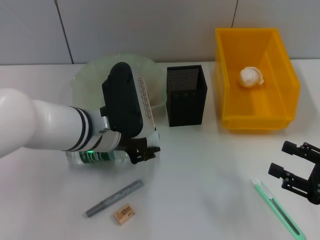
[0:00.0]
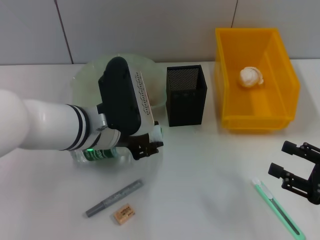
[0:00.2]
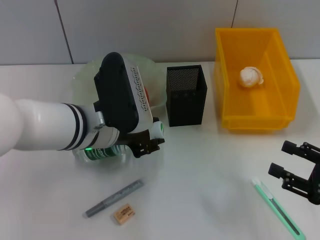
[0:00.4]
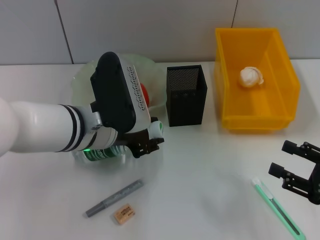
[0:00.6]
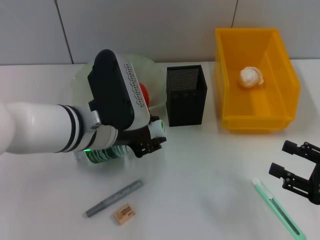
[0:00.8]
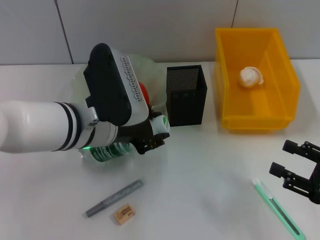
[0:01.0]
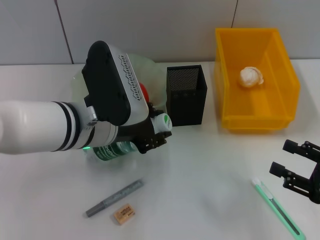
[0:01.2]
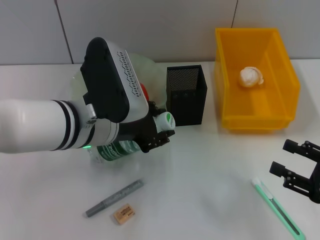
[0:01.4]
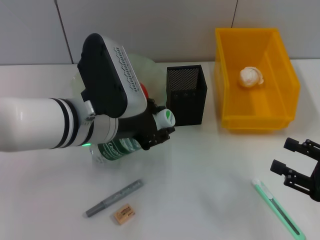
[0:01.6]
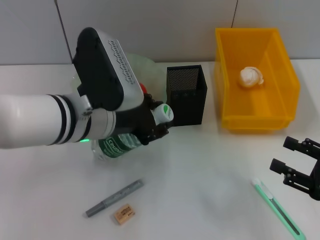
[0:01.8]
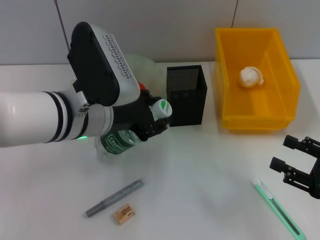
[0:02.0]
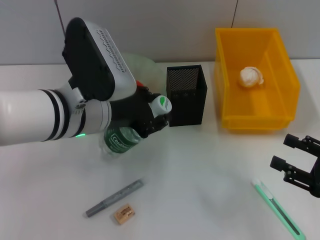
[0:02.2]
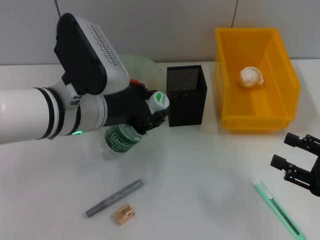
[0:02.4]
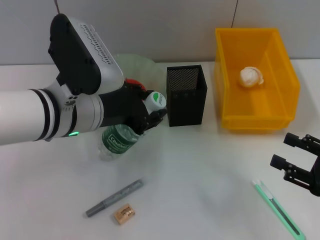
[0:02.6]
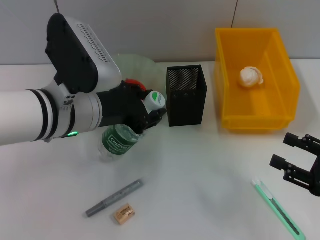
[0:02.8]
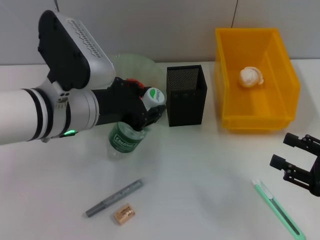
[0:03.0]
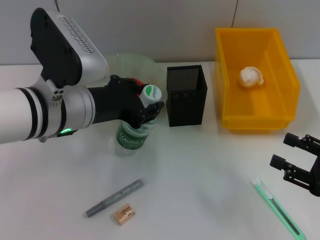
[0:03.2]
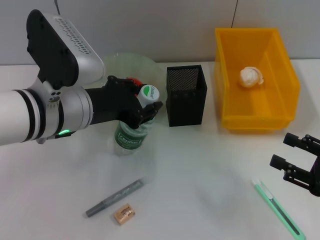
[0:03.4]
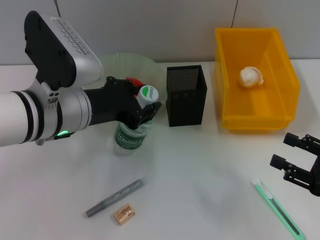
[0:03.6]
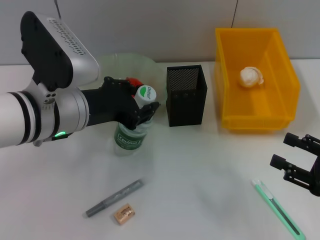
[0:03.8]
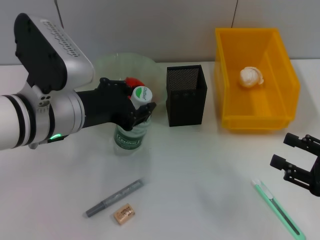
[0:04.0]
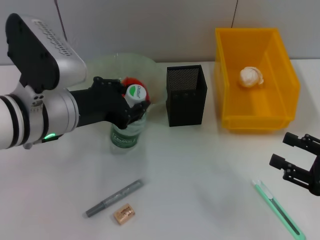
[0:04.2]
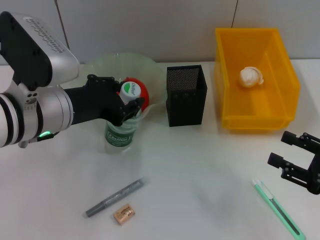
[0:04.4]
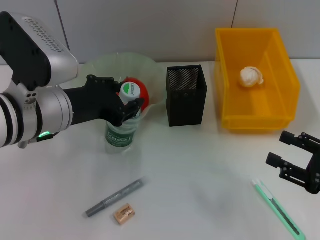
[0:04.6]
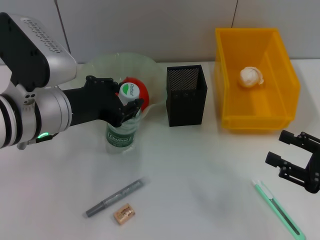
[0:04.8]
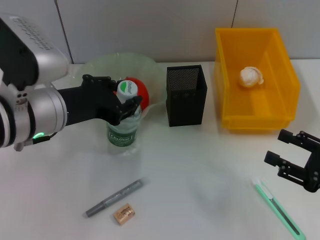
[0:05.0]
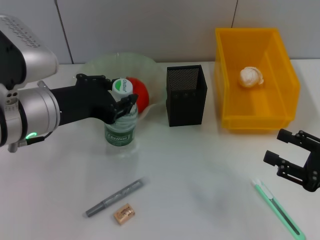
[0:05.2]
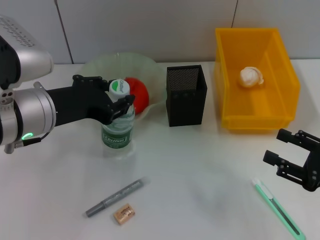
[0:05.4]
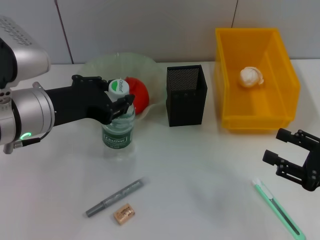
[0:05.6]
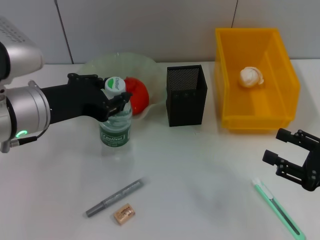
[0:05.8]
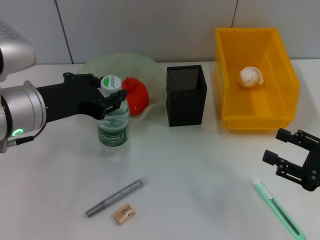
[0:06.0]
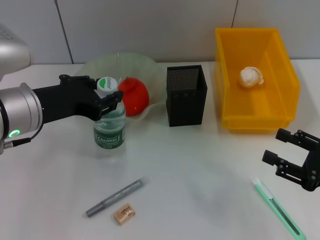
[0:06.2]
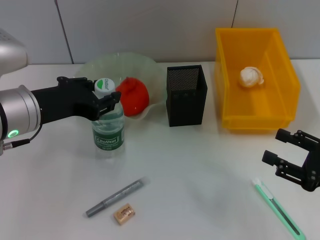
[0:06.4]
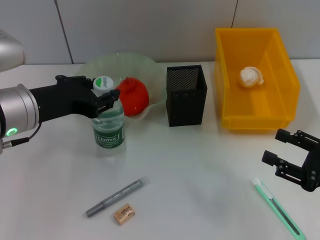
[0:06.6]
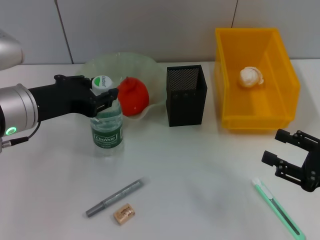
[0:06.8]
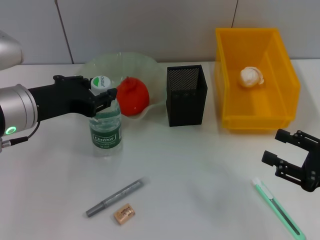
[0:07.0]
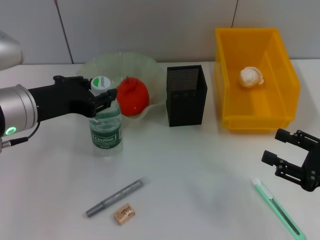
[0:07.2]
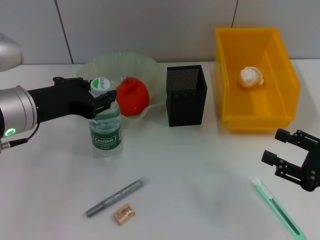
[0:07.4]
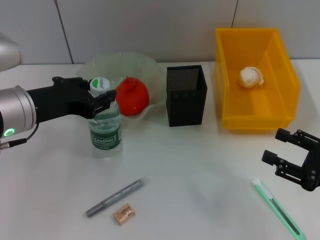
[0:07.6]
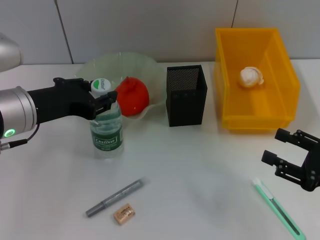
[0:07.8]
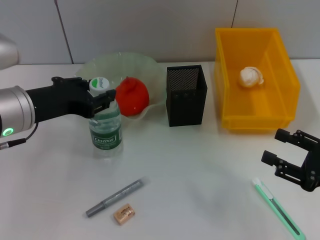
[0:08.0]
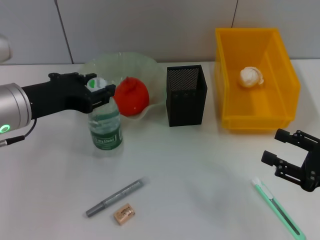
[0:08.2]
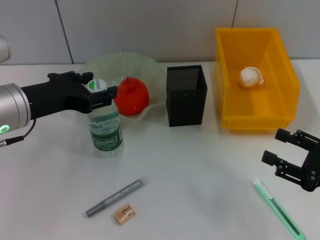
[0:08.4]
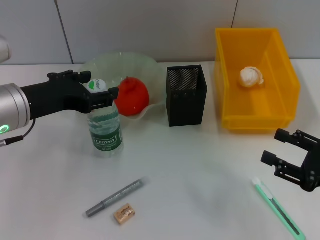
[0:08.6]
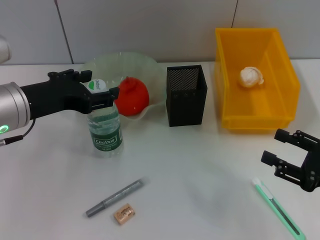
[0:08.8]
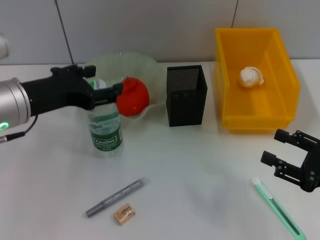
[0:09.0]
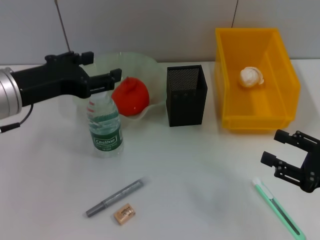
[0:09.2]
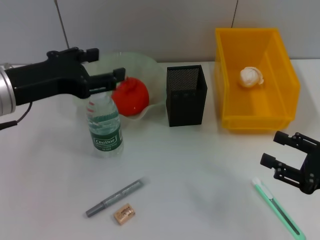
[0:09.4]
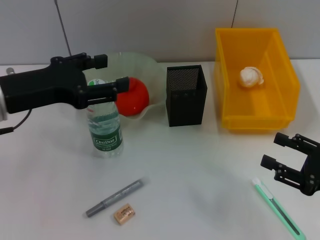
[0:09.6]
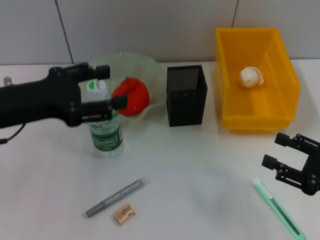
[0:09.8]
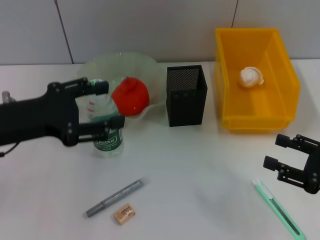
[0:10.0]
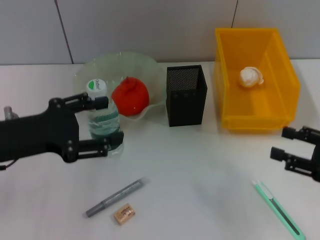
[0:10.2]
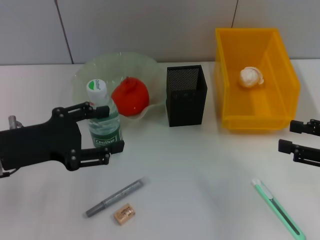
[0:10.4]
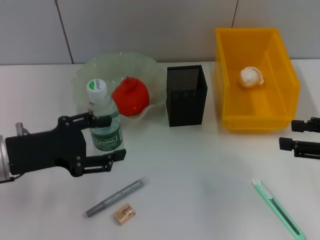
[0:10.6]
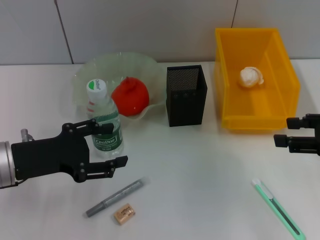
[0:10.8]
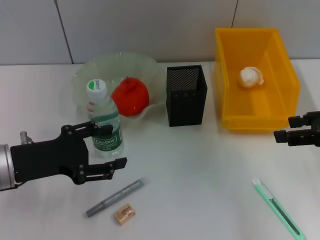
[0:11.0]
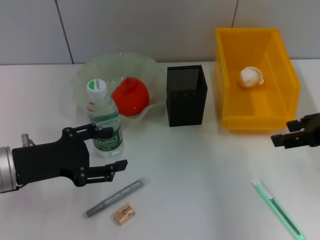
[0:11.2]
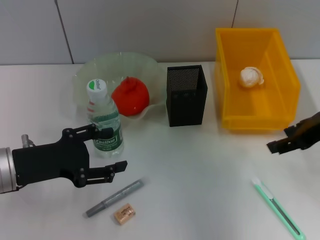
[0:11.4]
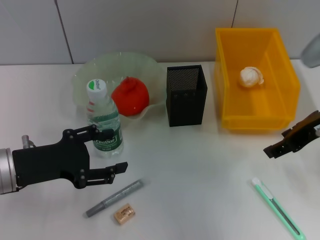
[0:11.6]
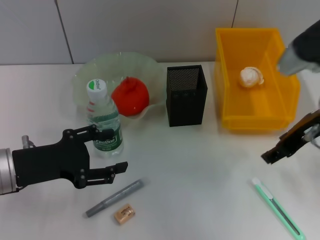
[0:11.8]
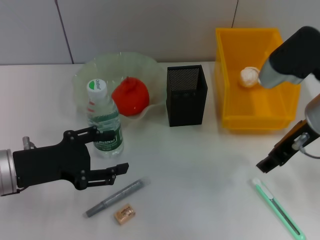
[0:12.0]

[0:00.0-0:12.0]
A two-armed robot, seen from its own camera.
Step, 0:00.0 to 0:09.2: Place the water bottle on the table with the left hand.
0:00.0 to 0:01.6: The grippers move only a little.
0:01.6 to 0:03.0: The grippers make only small movements.
0:03.0 to 0:06.0: The grippers make only small movements.
0:06.0 to 0:07.6: The grippers move only a little.
0:07.6 to 0:09.0: The left gripper opens.
0:09.0 to 0:10.4: The right gripper heads upward, covering roughly 5 cm, while the left gripper shifts by some 5 cm.
0:10.4 to 0:12.0: The right gripper shifts approximately 20 cm to the left, forward and upward.

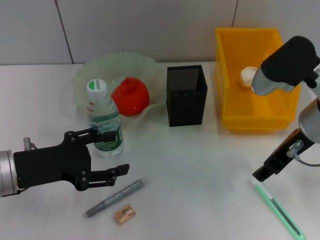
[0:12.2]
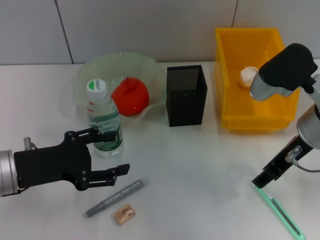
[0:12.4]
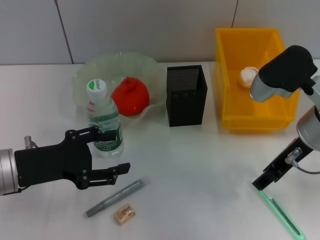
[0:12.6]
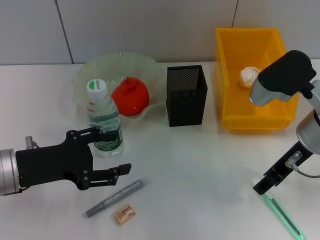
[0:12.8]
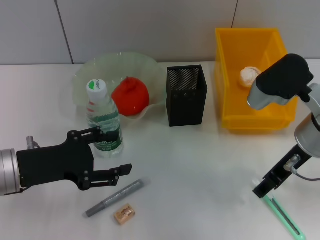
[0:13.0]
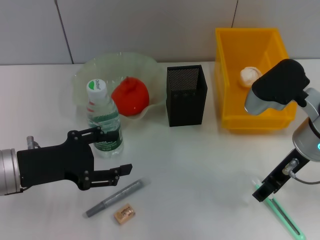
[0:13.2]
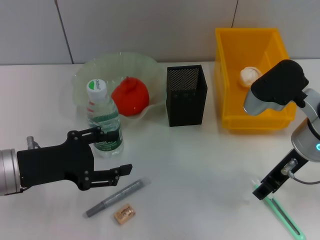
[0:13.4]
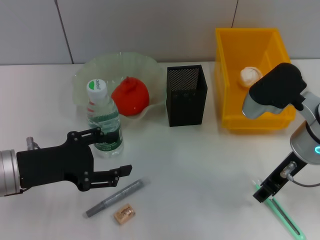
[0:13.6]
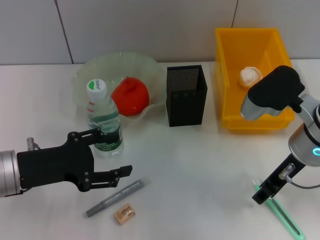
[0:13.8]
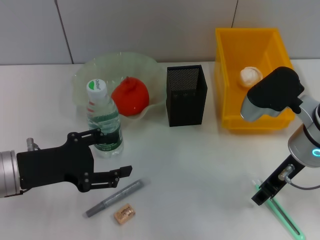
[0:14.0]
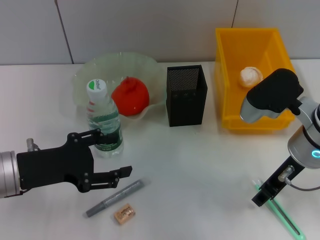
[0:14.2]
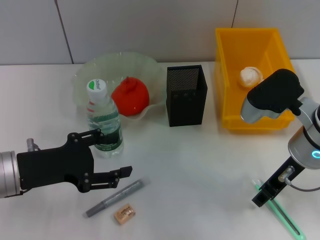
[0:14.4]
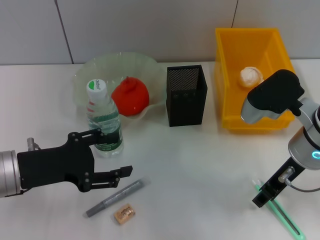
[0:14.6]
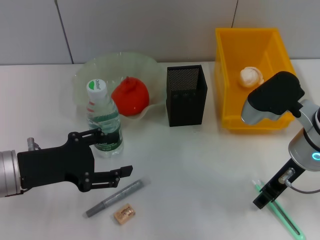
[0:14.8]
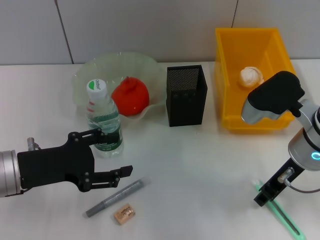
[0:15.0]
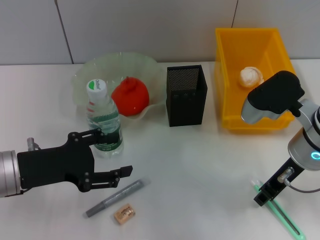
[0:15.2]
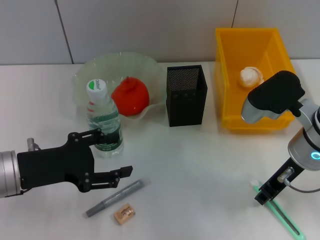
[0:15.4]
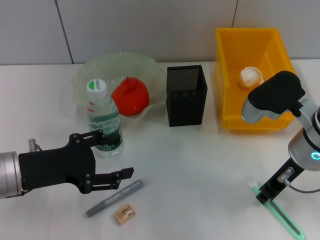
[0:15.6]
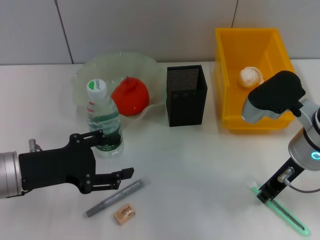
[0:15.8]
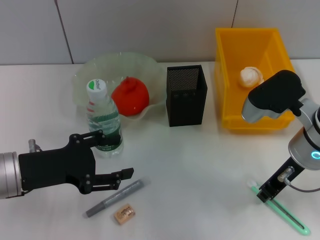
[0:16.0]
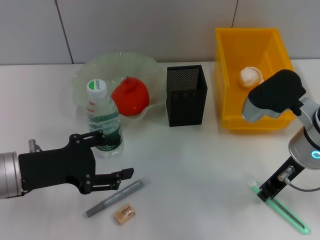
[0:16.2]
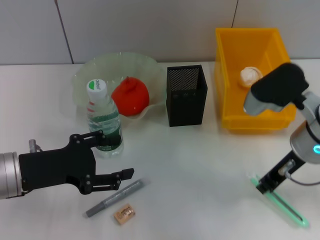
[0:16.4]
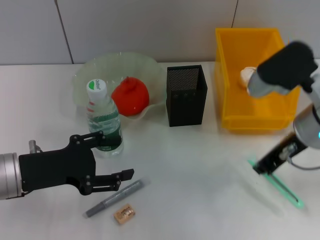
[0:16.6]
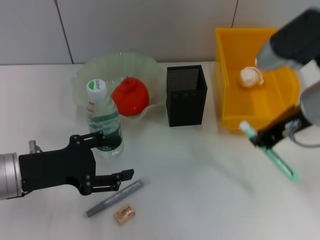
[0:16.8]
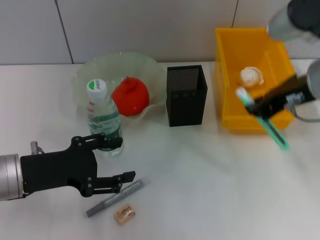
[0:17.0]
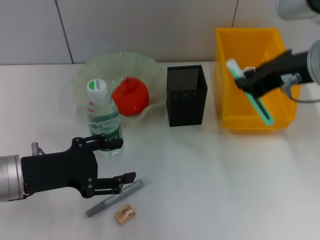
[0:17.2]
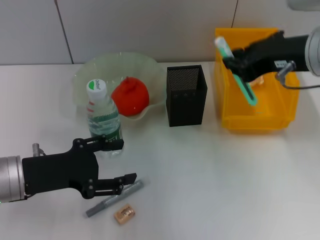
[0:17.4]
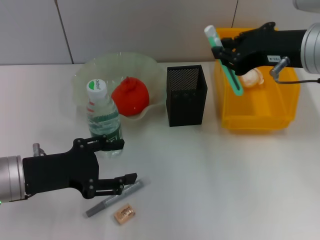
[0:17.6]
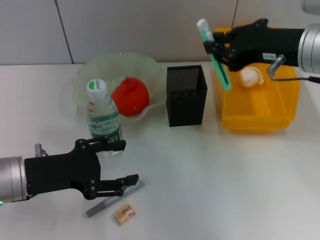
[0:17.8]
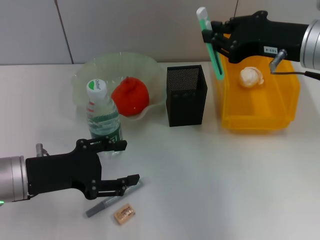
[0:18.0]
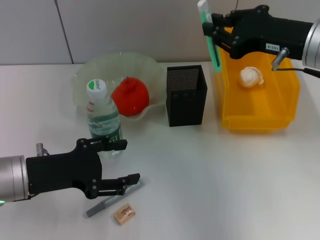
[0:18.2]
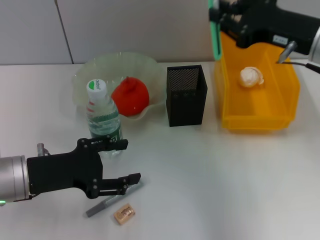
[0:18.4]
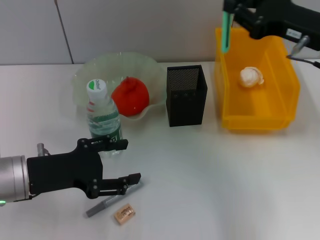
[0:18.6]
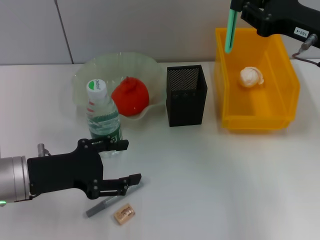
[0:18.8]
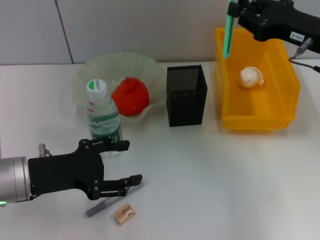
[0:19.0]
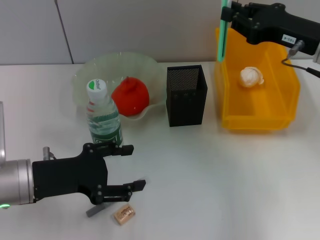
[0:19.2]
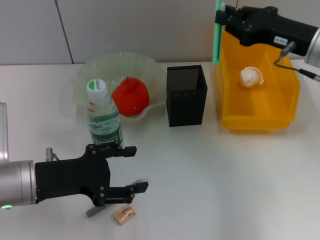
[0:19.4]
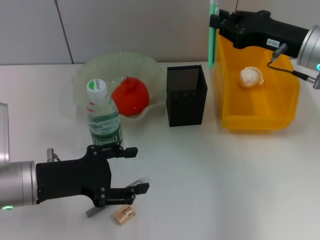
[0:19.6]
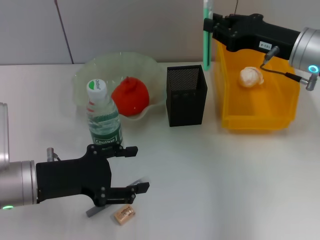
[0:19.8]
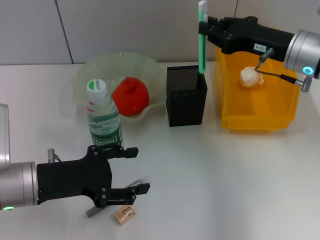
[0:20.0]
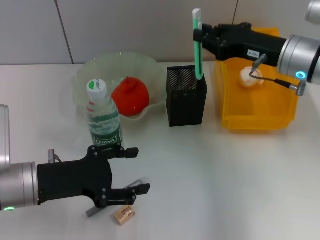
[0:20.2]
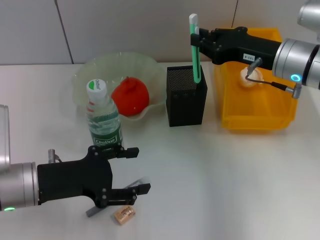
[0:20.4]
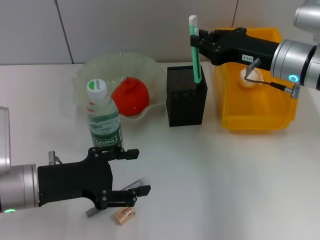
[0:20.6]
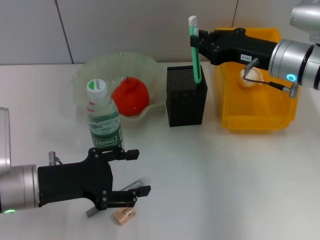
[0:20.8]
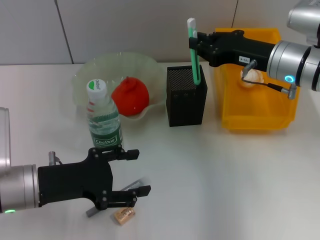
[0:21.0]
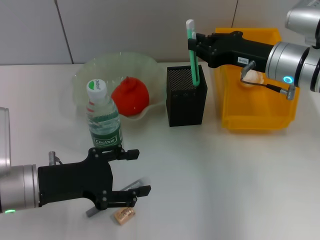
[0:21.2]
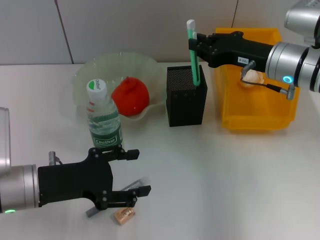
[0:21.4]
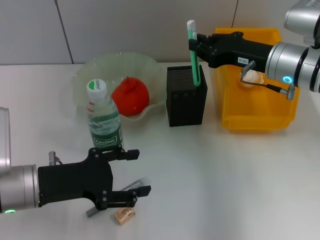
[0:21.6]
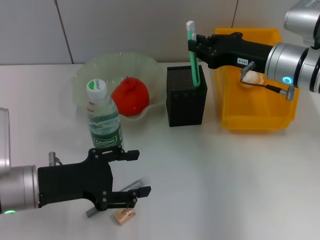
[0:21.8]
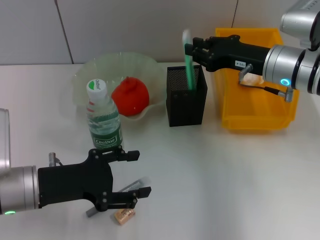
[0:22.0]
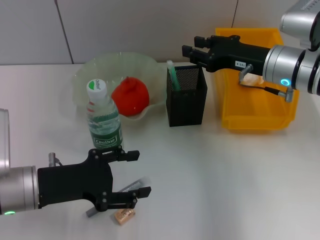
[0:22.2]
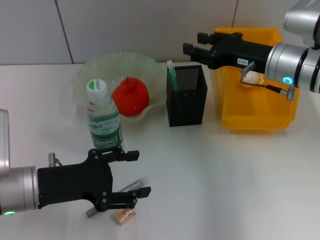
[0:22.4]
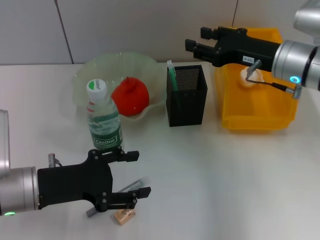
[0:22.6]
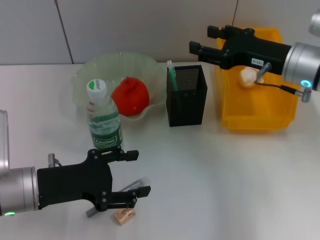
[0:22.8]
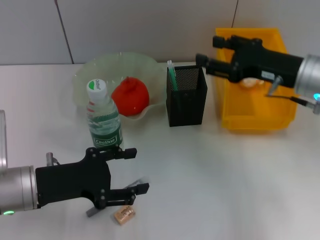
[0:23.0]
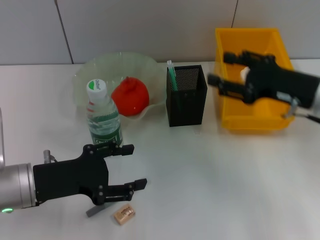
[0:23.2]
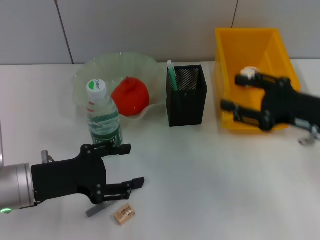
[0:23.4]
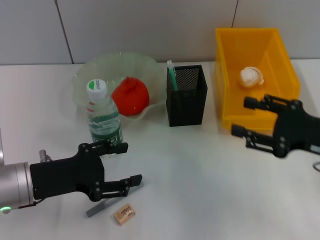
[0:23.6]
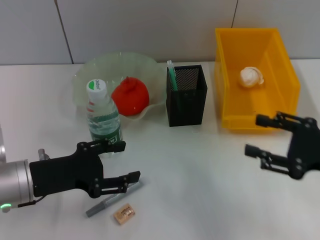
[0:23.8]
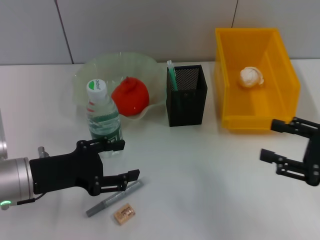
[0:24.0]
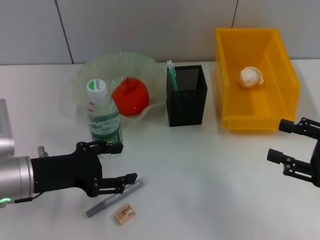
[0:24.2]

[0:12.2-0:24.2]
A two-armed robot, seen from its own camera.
Step, 0:12.2 to 0:15.8: Grab the blue utility knife with the right hand.
Step, 0:16.0 to 0:22.6: Place the blue utility knife into the pen holder with the right hand.
0:12.2 to 0:13.8: The grippers make only small movements.
0:13.8 to 0:15.2: Neither gripper changes place.
0:15.2 to 0:16.6: The right gripper closes up.
0:16.6 to 0:18.2: The right gripper ends up approximately 5 cm from where it was.
0:18.2 to 0:19.8: The right gripper is displaced downward by about 5 cm.
0:19.8 to 0:21.2: There are only small adjustments of the grippers.
0:21.2 to 0:22.6: The right gripper opens.
0:22.6 to 0:24.2: The right gripper goes roughly 20 cm backward and to the right.
